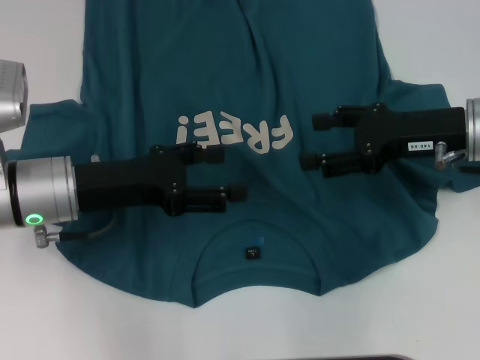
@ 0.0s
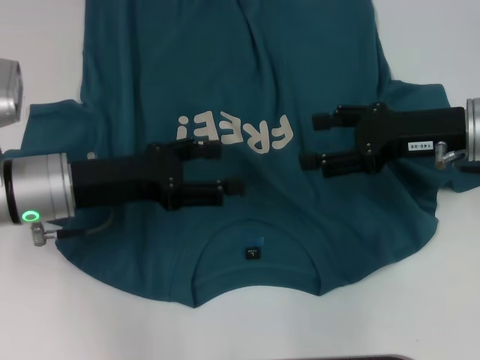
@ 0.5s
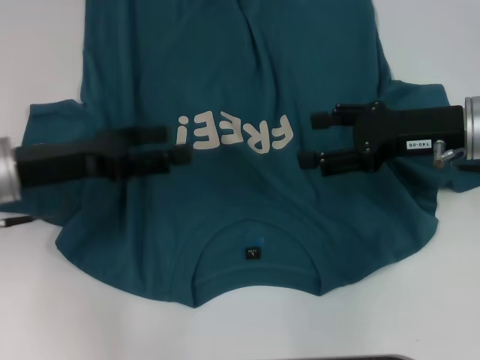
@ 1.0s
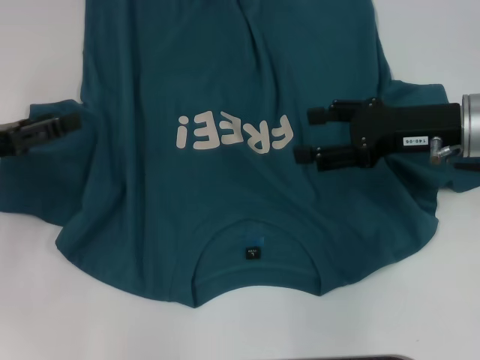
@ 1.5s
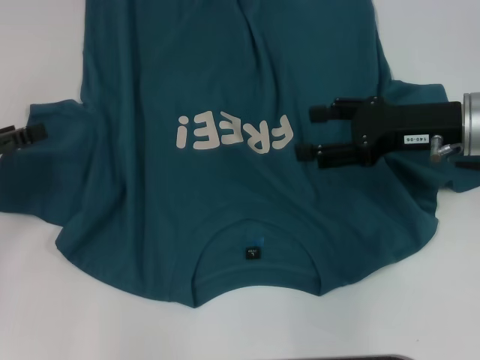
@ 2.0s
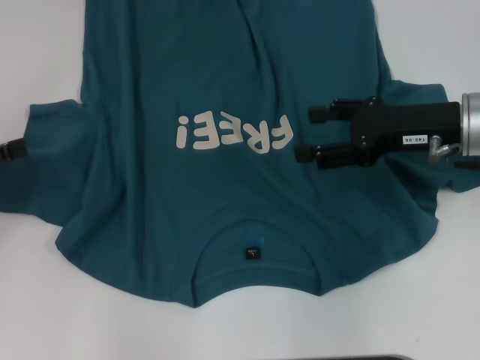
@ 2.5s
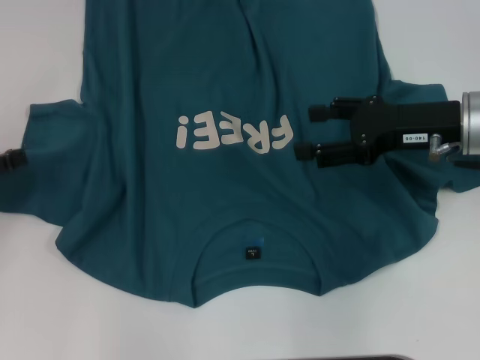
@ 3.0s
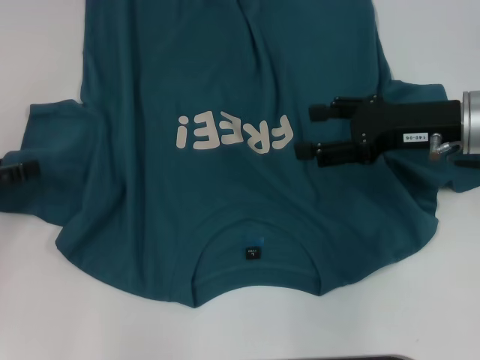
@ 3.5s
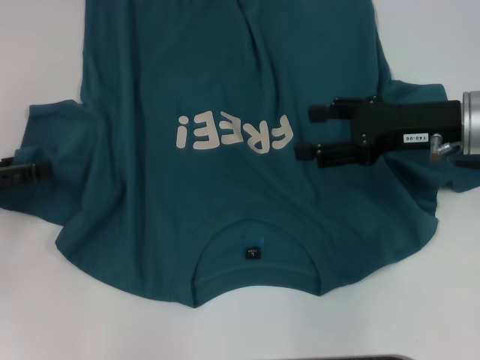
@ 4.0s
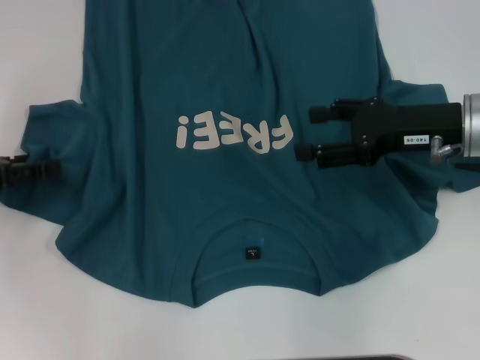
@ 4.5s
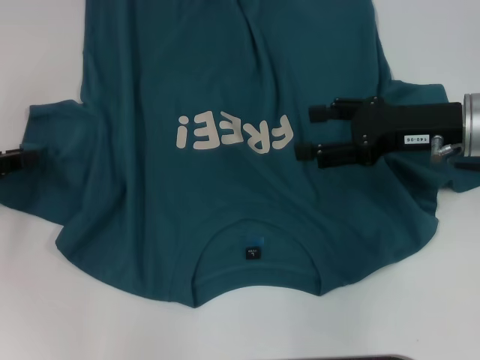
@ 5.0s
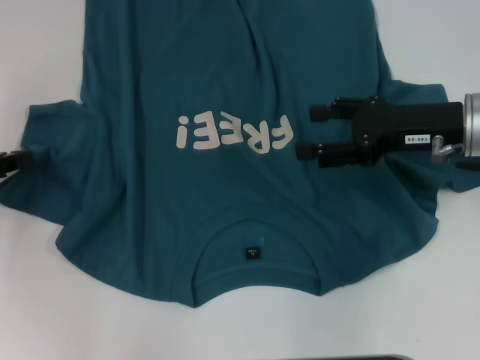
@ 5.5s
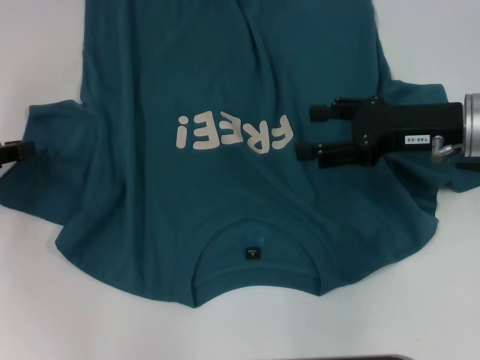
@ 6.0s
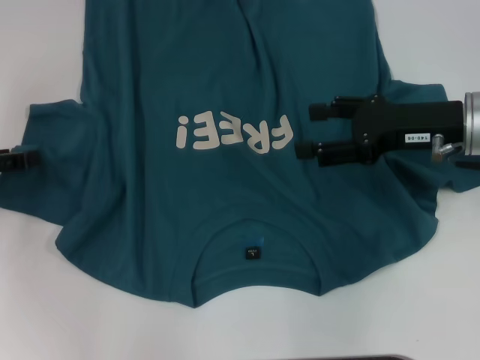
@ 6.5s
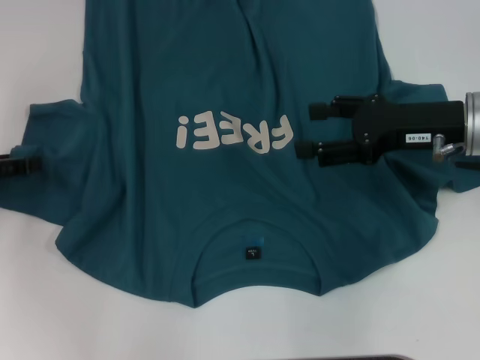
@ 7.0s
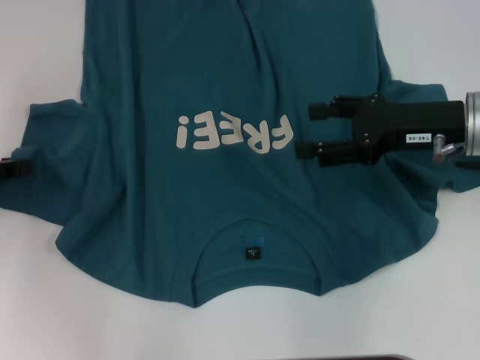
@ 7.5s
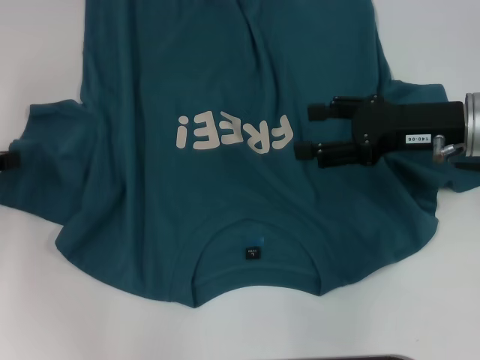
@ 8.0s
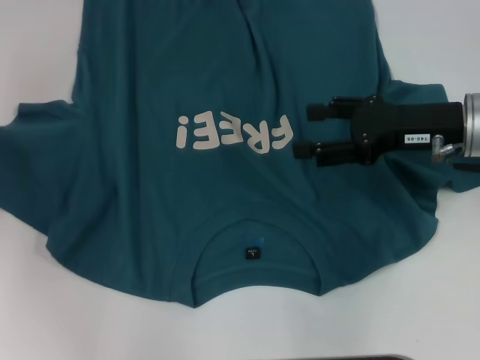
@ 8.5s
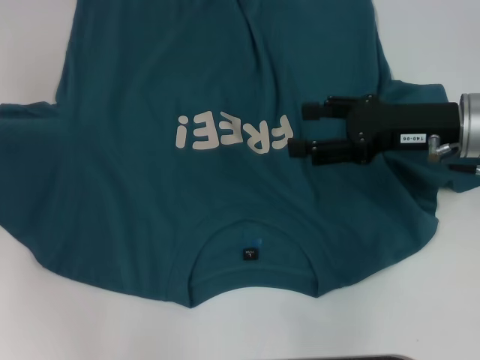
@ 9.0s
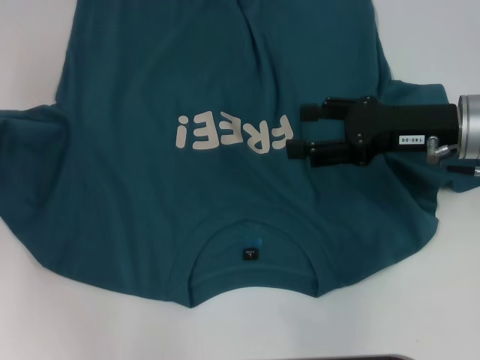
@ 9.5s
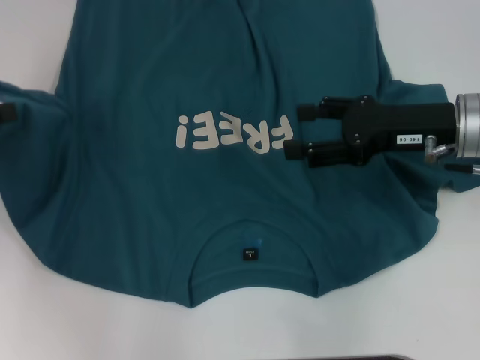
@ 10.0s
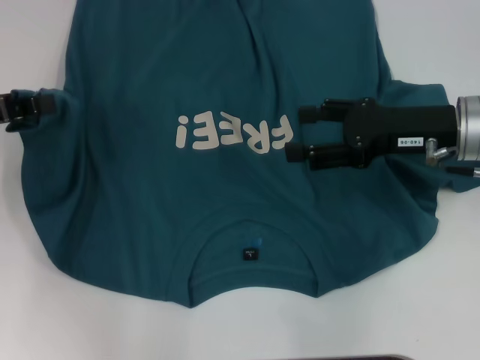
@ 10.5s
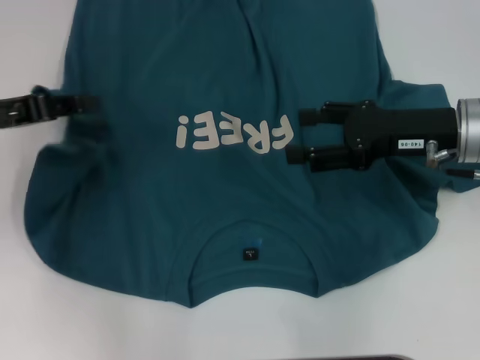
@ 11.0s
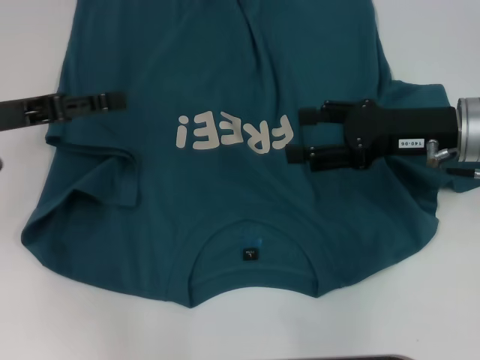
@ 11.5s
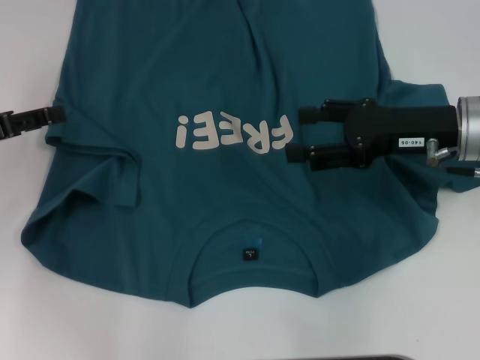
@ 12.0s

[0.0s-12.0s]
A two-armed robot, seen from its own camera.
0.0s to 2.0s: The left gripper goes approximately 15 cm to the left.
8.0s to 10.0s: The left gripper shifts approximately 5 cm upward.
10.0s to 12.0s: The left gripper opens its fingers.

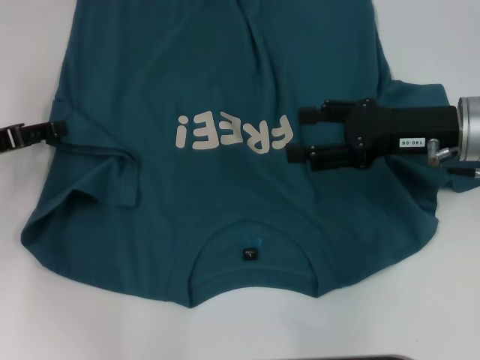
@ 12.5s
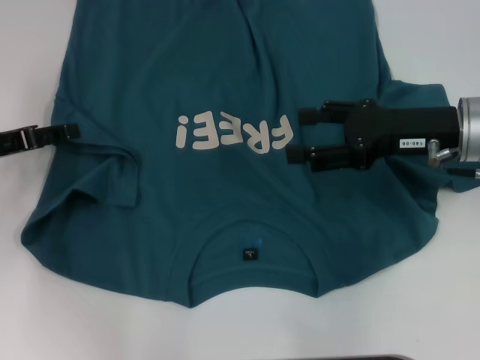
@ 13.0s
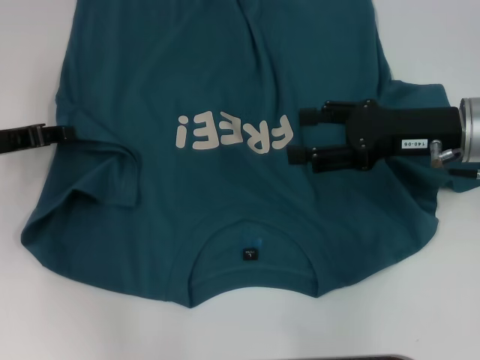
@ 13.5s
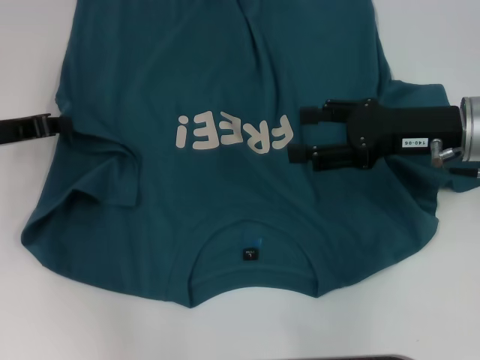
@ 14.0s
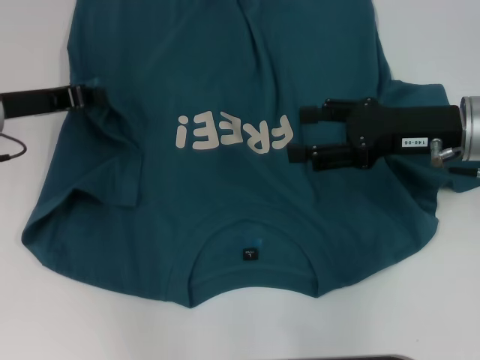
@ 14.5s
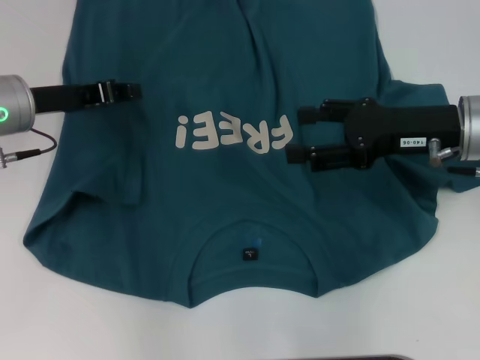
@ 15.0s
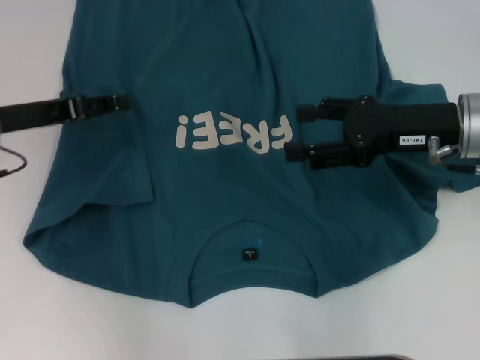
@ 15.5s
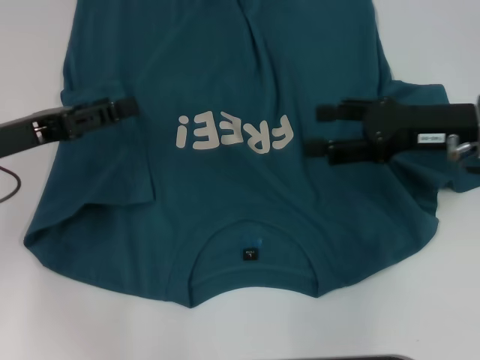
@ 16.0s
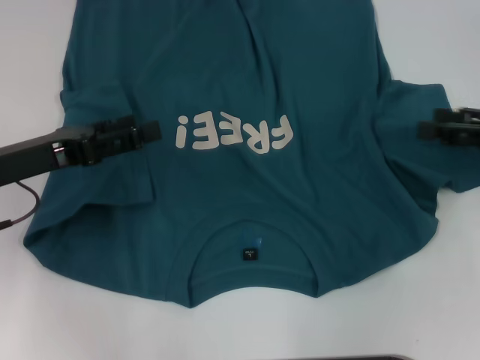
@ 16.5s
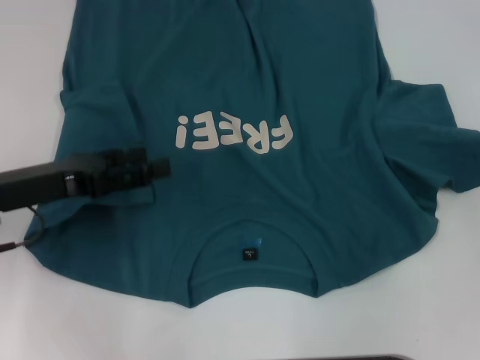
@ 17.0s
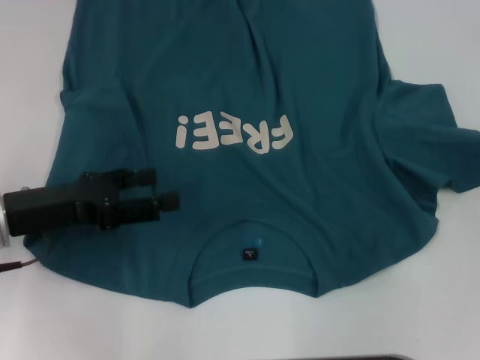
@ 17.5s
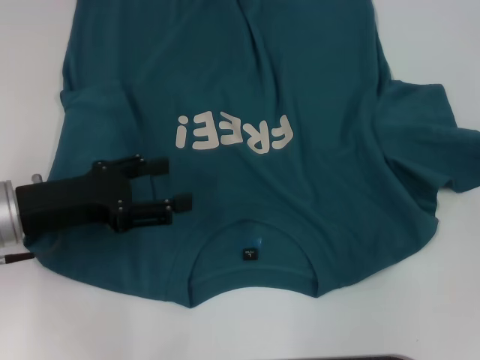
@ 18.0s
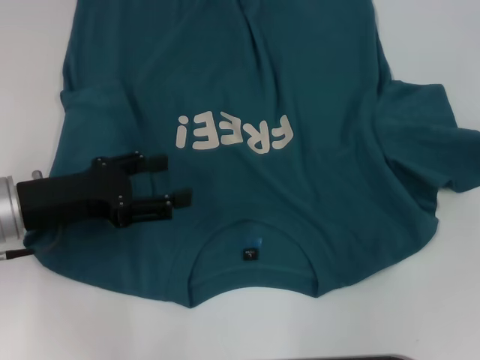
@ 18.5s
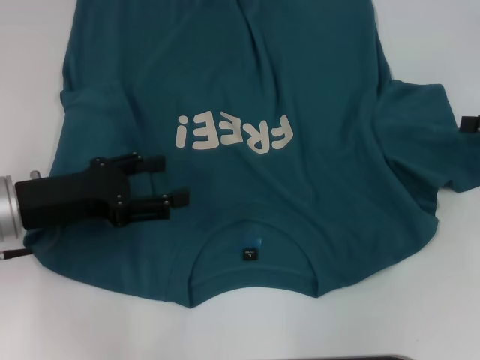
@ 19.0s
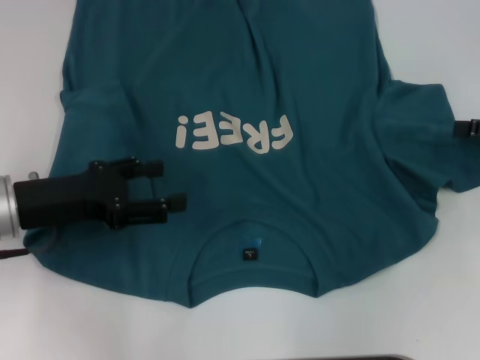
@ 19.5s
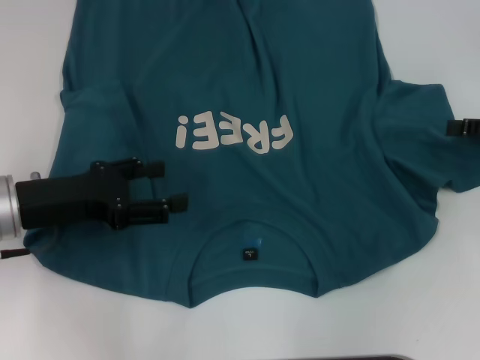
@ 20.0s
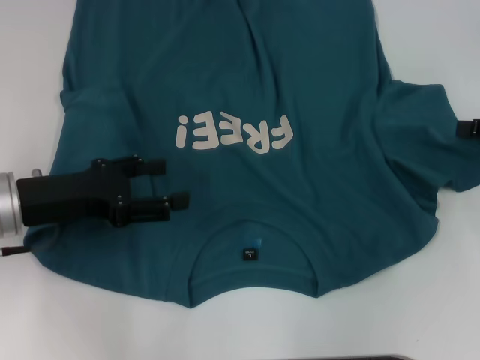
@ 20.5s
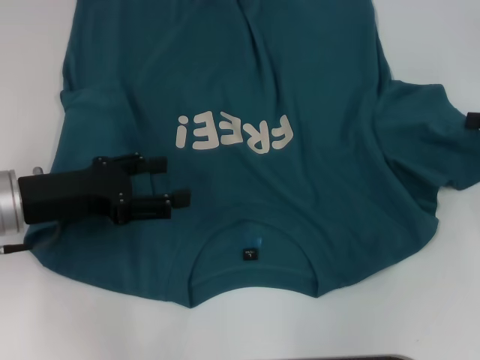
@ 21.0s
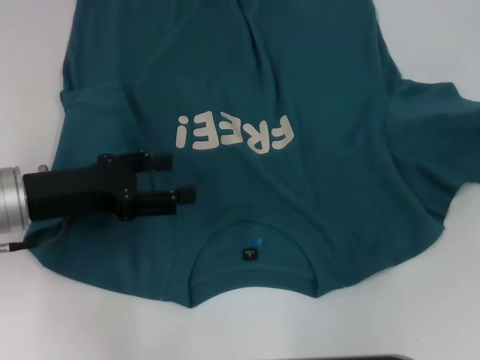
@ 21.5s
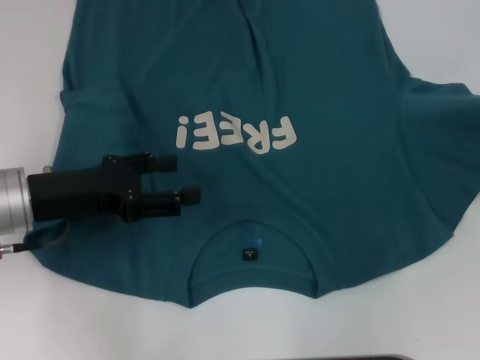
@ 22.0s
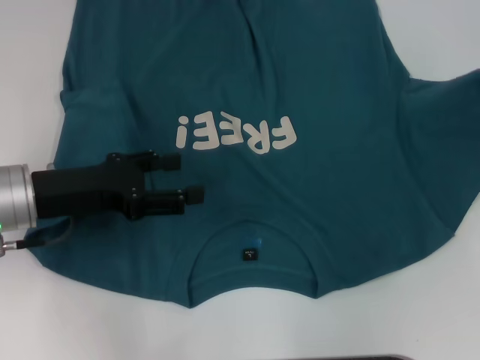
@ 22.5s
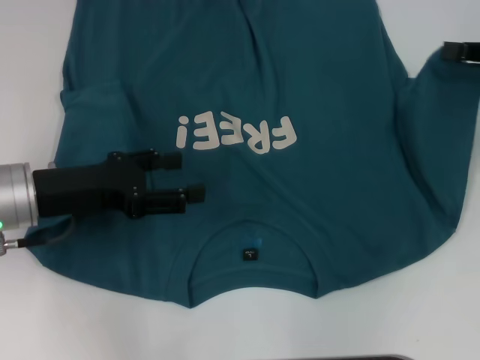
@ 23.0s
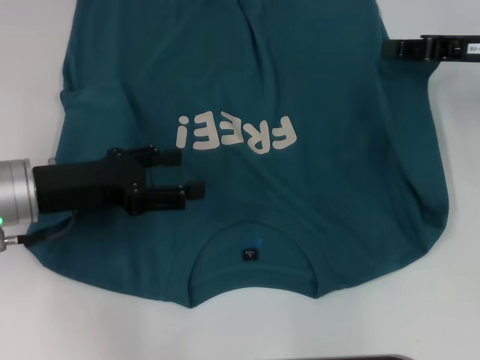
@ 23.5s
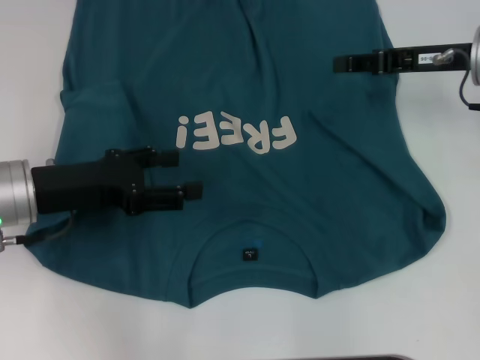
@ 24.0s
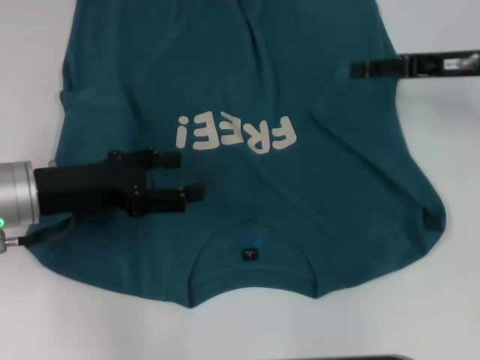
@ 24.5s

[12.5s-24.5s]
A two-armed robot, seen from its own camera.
Step, 12.5s to 15.0s: Fold the bottom left sleeve with your left hand.
12.5s to 14.5s: The left gripper heads to the right, covering some 5 cm, and closes.
14.5s to 16.5s: The right gripper heads to the right, covering roughly 10 cm, while the left gripper is displaced backward by approximately 10 cm, and opens its fingers.
16.5s to 18.5s: The right gripper is displaced to the right by about 5 cm.
20.5s to 22.5s: The right gripper closes its fingers.
22.5s to 24.5s: The right gripper shifts roughly 15 cm to the left and forward, and opens its fingers.

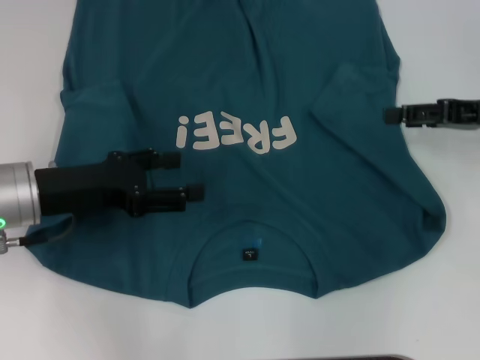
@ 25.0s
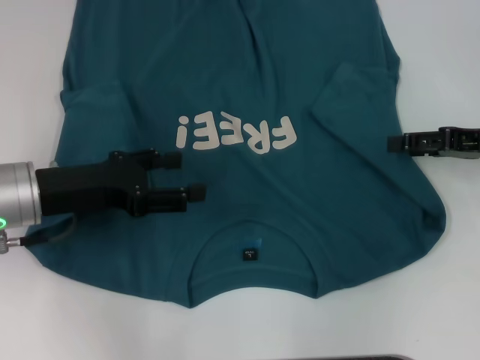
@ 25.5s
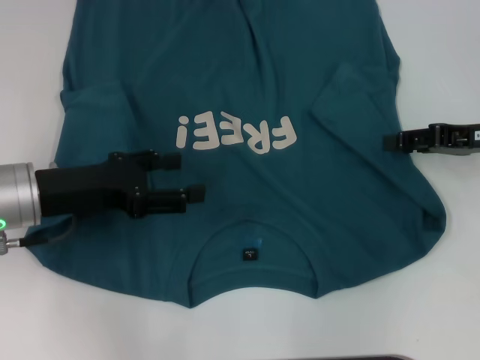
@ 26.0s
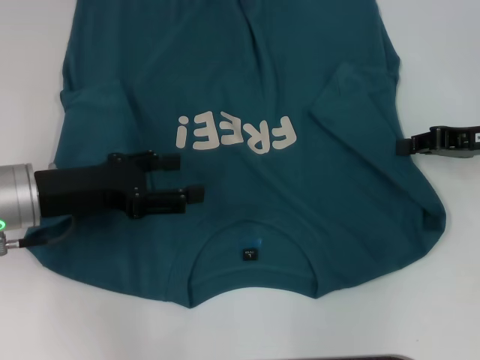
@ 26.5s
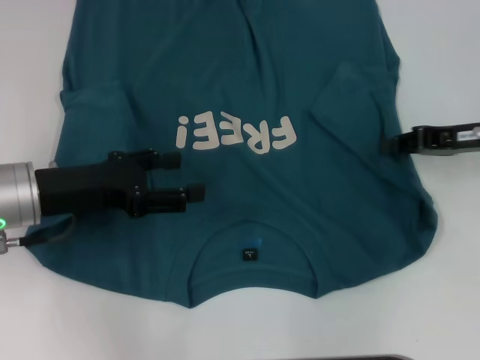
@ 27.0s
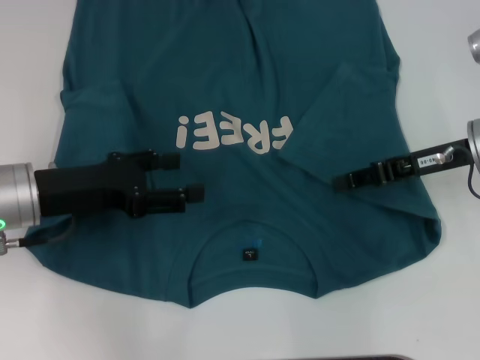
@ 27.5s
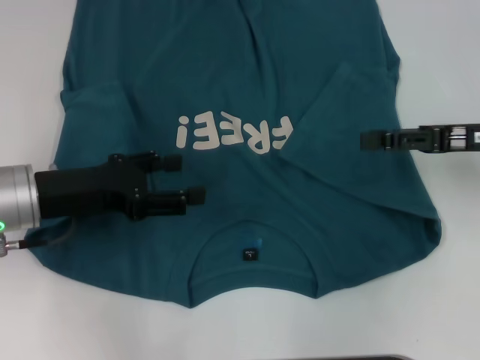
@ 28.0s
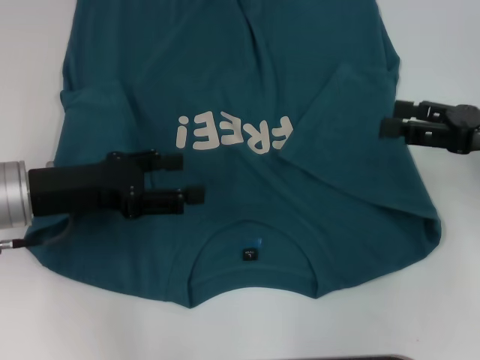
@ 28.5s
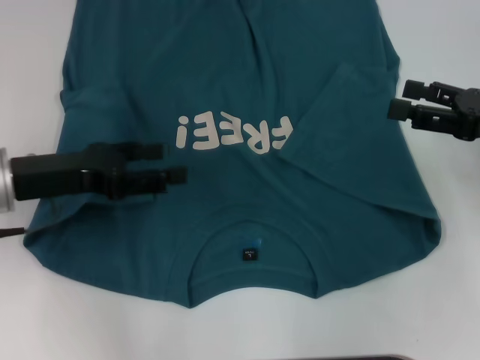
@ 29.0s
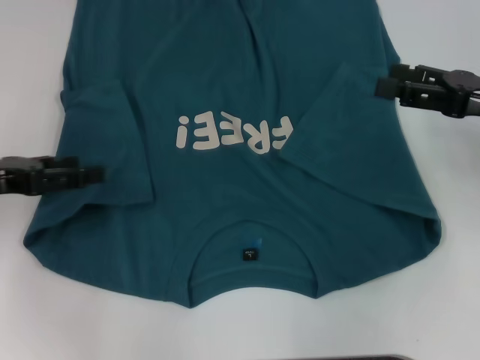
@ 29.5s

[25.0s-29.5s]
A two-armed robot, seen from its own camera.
Step, 25.0s to 27.5s: Fold the bottom right sleeve to the right.
25.0s to 27.0s: The right gripper closes up.
27.0s to 29.5s: The right gripper opens up. Meanwhile the left gripper travels to the left by some 10 cm.
